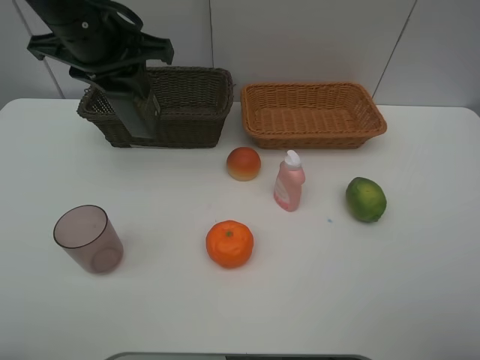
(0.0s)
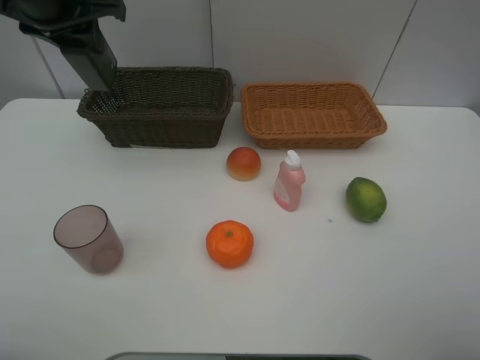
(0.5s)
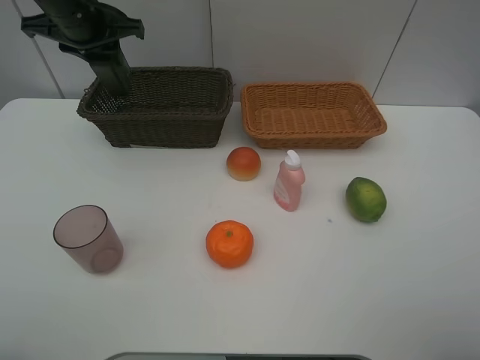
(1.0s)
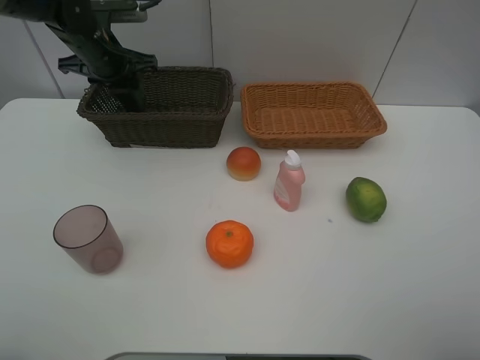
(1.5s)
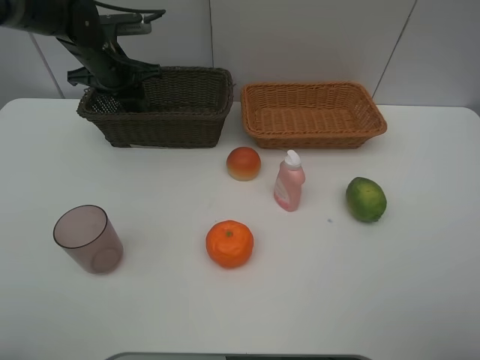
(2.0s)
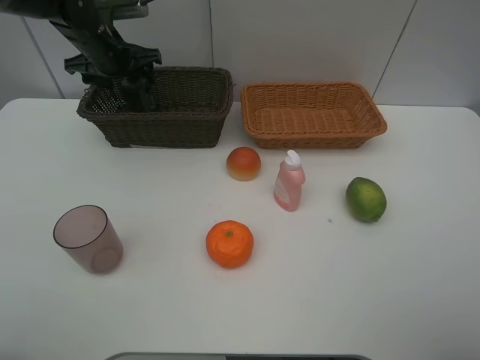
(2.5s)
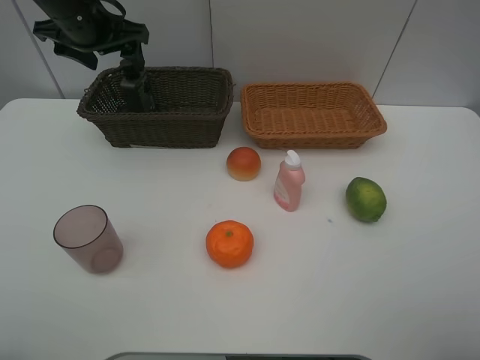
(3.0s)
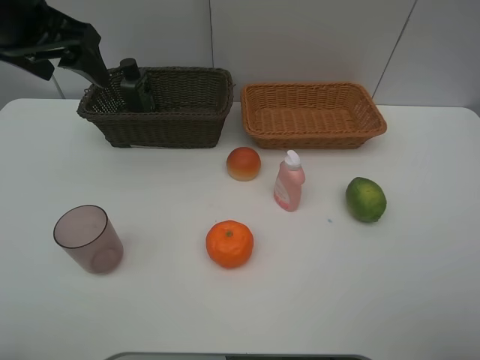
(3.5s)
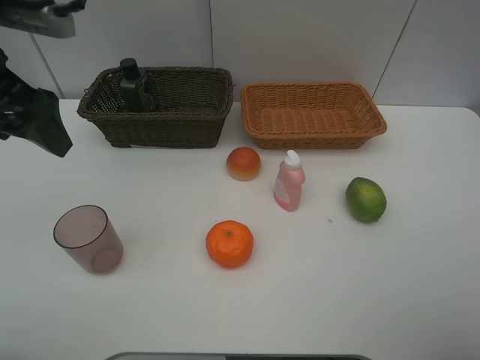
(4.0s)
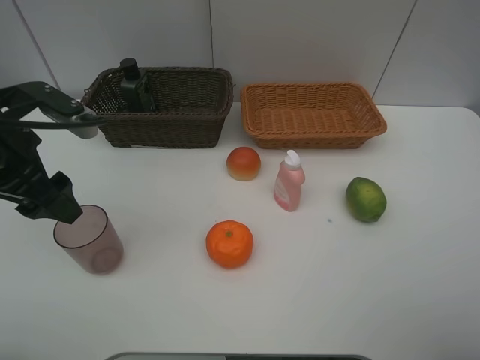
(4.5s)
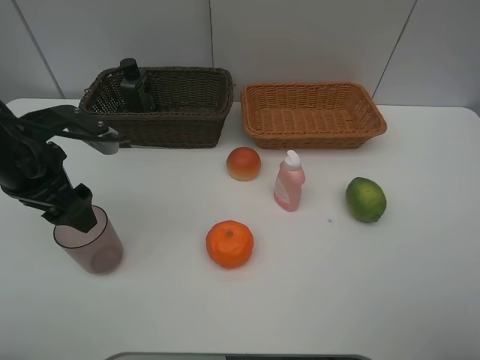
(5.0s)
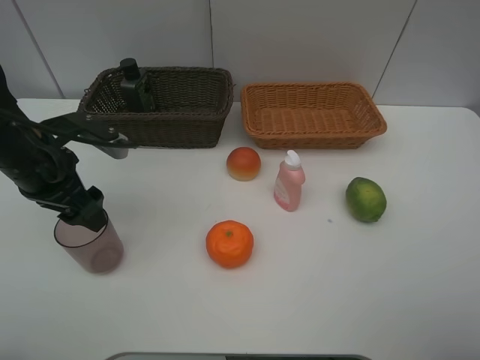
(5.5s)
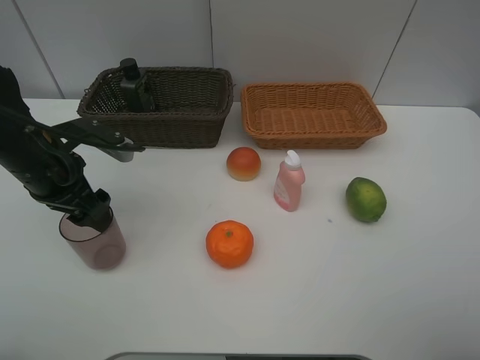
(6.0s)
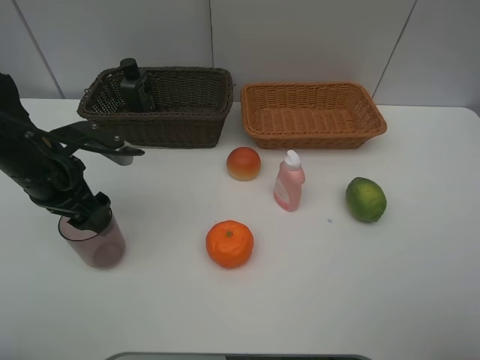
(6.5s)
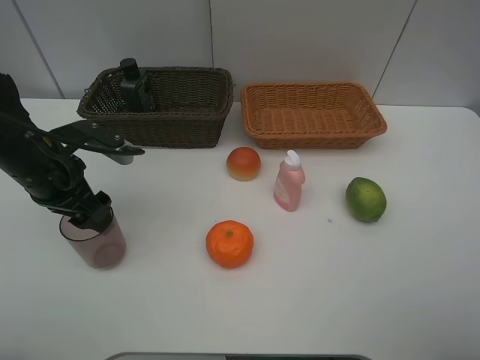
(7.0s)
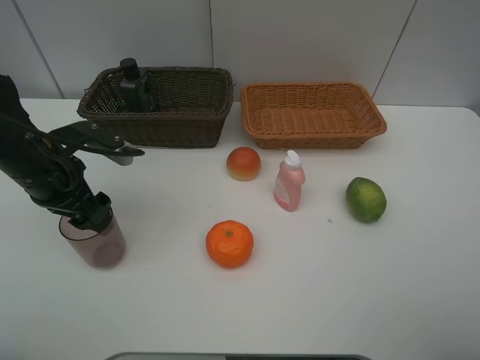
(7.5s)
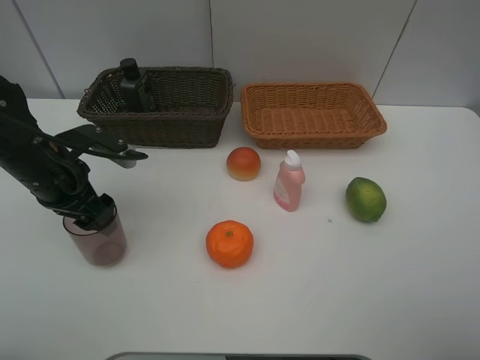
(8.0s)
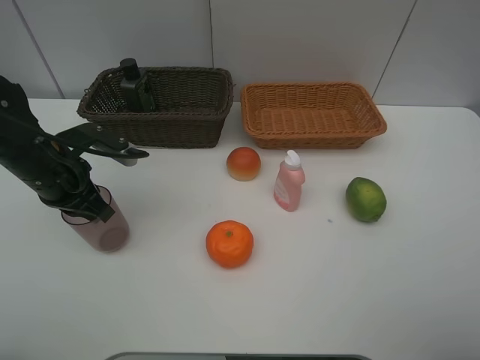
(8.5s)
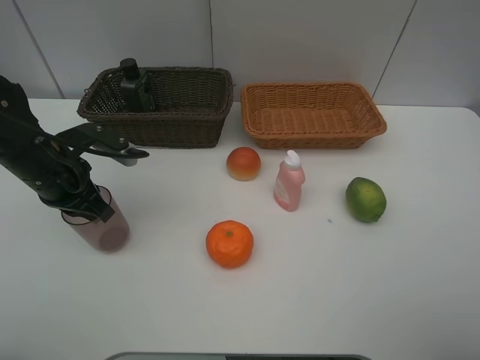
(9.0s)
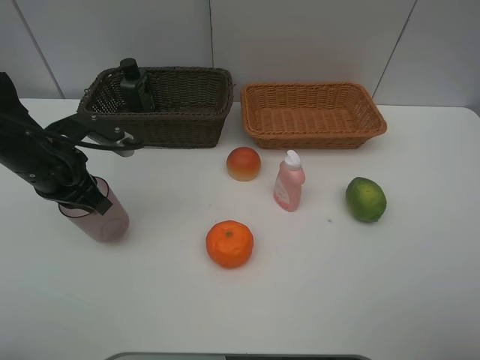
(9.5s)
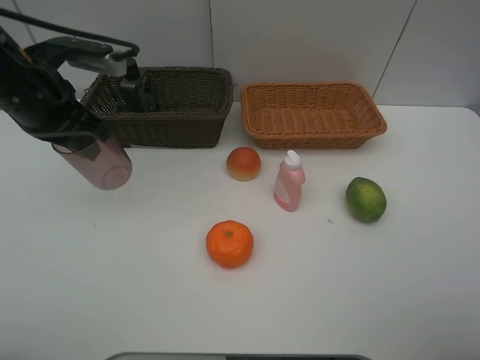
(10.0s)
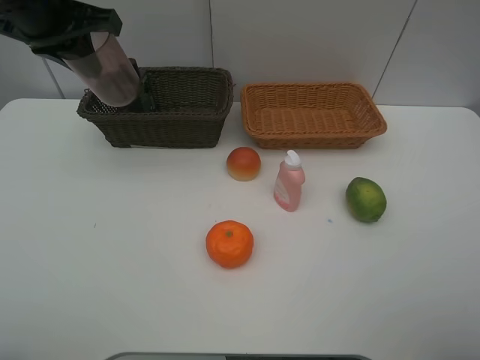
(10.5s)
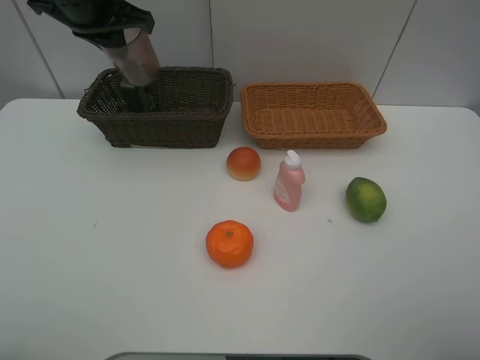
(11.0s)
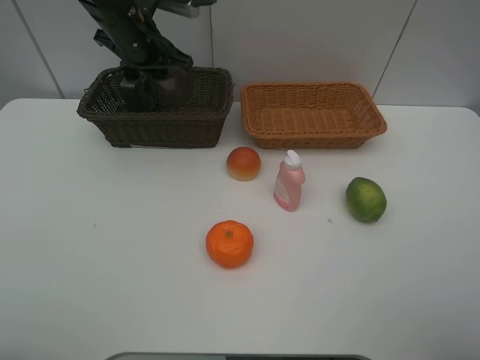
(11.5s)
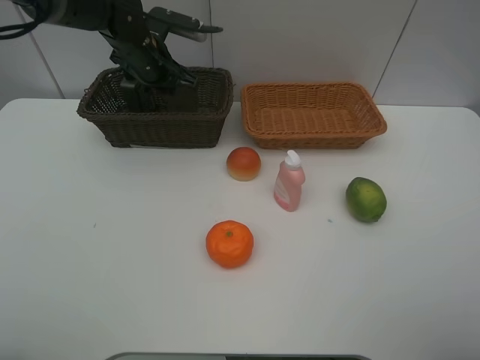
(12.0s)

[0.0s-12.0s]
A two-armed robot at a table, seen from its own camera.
Task of the whole recording: place multiple objects separately in different baskets.
0.0s to 2.0s: The left gripper travels forward and downward by roughly 20 cm.
2.0s to 4.0s: The left gripper heads backward and upward, covering about 25 cm, and opens.
4.0s to 6.0s: The left gripper is displaced downward by roughly 15 cm.
6.0s to 8.0s: The grippers move only a little.
8.0s to 10.0s: The left gripper heads upward, covering some 10 cm, and closes up.
10.0s to 12.0s: The left gripper heads forward and to the right, covering some 20 cm.

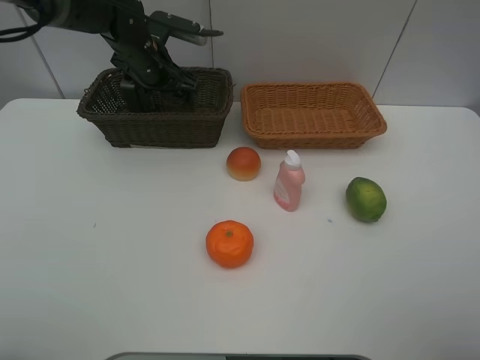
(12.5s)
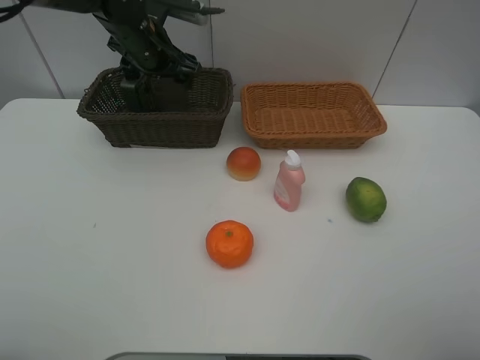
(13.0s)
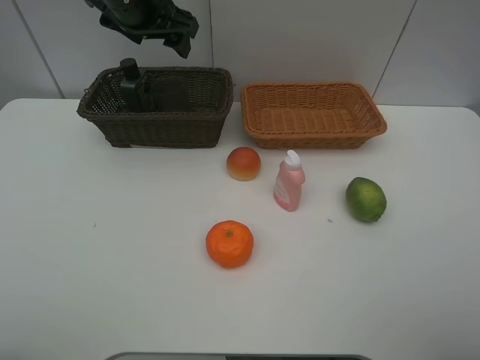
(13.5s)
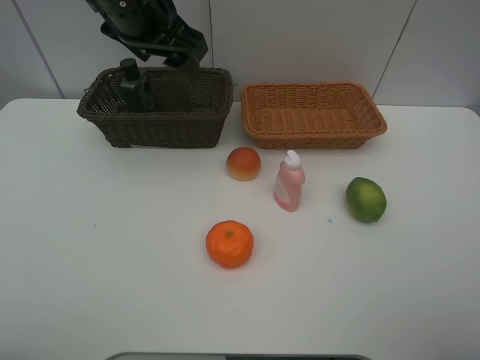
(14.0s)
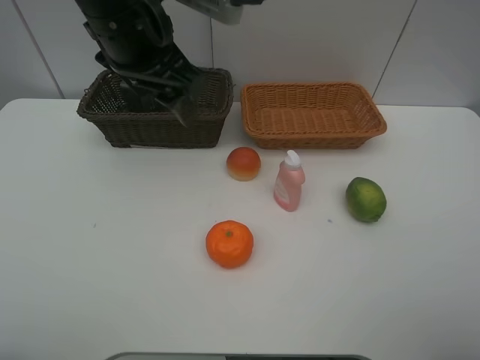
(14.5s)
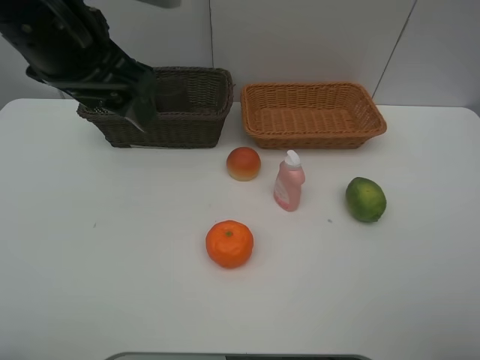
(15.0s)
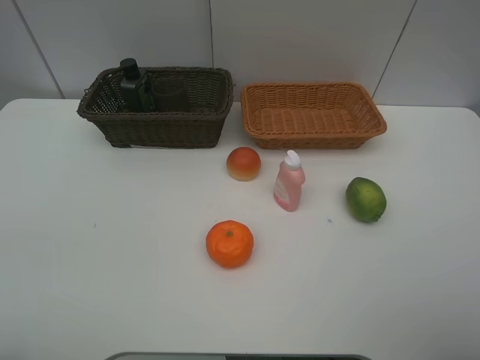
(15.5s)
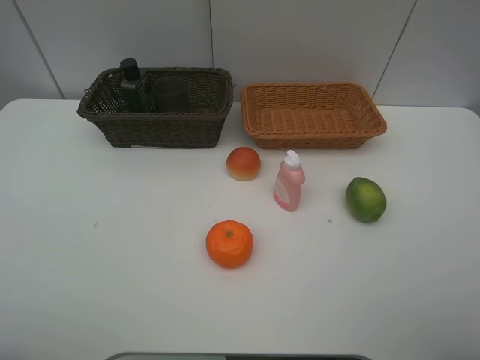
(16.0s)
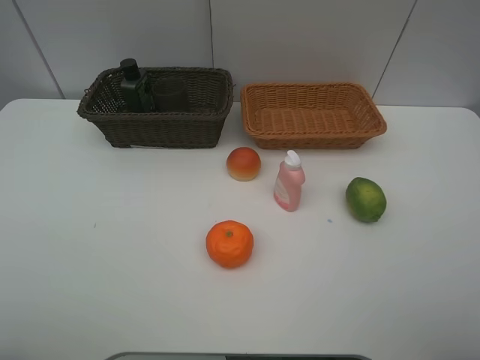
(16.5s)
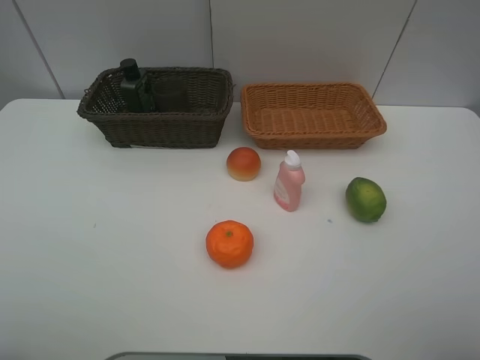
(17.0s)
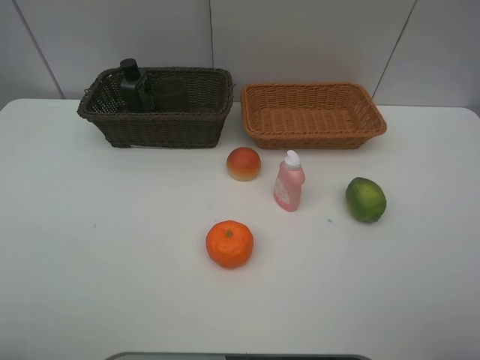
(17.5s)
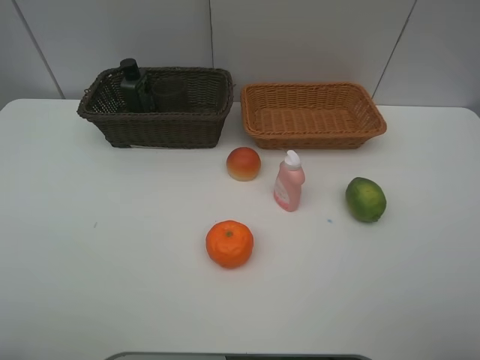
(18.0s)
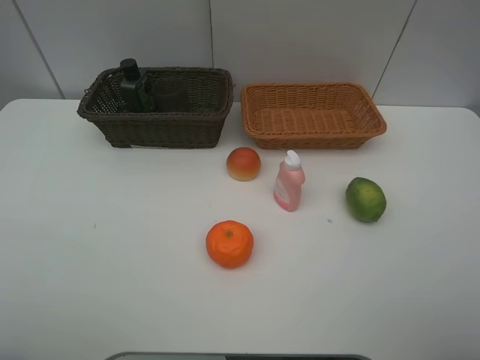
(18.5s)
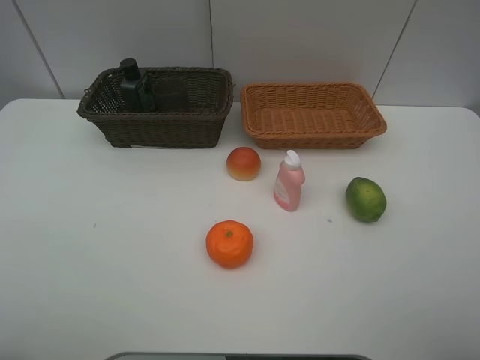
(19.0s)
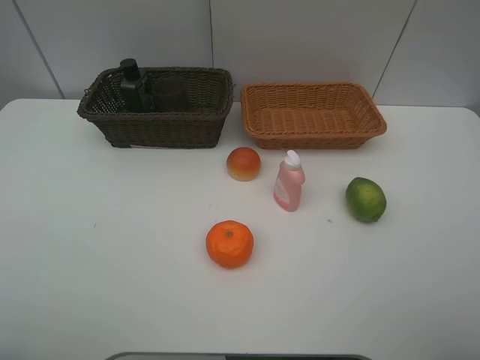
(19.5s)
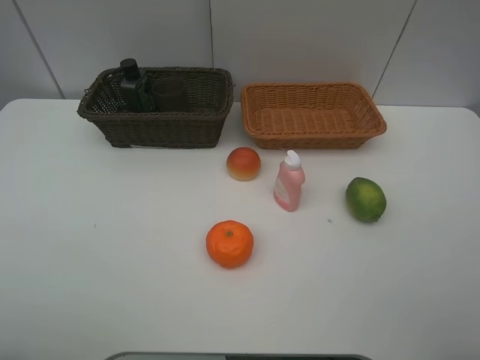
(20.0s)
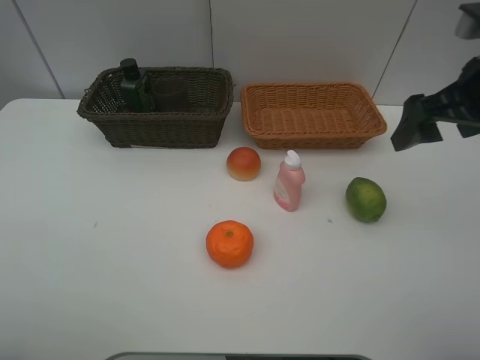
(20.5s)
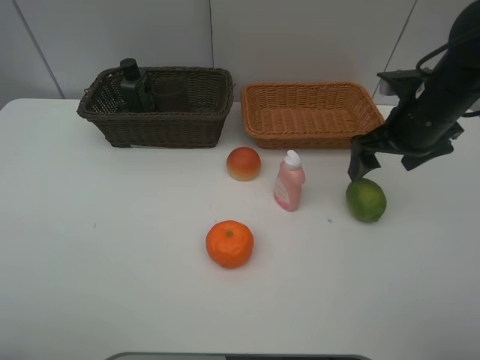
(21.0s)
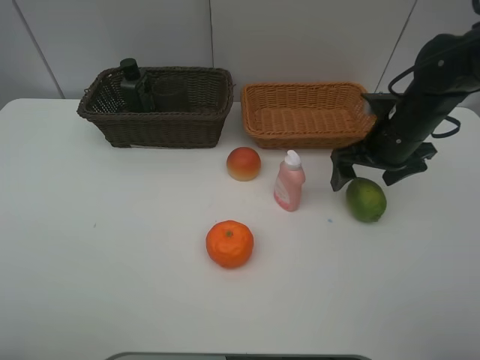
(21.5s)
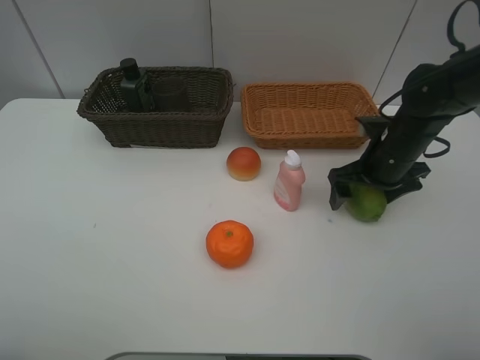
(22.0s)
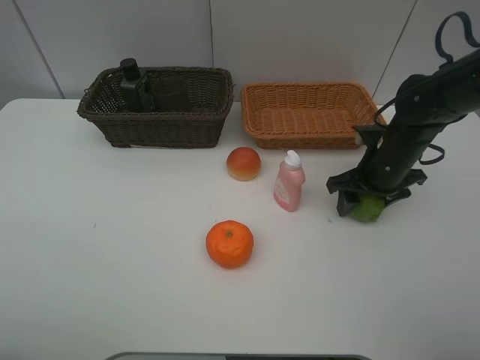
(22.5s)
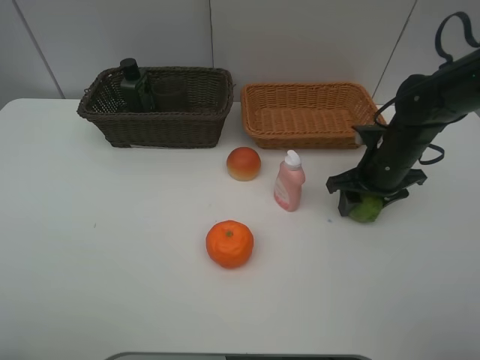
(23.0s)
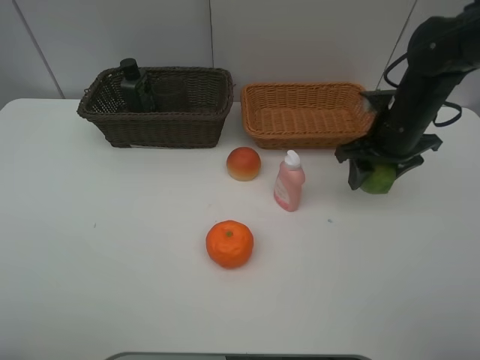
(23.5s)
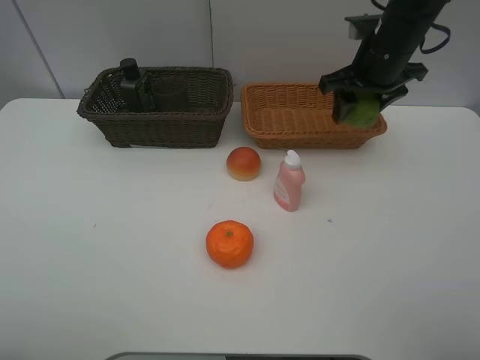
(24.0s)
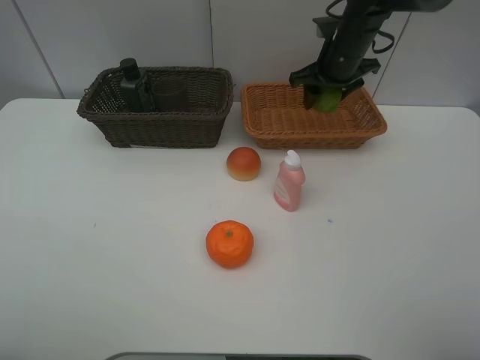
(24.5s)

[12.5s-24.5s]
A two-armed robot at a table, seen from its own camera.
Task of the whole recording: place multiple objects separately in different baskets.
12.5s to 14.5s: The left gripper moves backward and upward, roughly 20 cm.
14.5s to 16.5s: The left gripper travels backward and to the left by approximately 35 cm.
18.5s to 20.5s: The right gripper goes roughly 25 cm forward.
20.5s to 22.5s: The right gripper shifts roughly 15 cm downward, and closes.
22.5s to 24.5s: The right gripper travels forward and upward by approximately 15 cm.

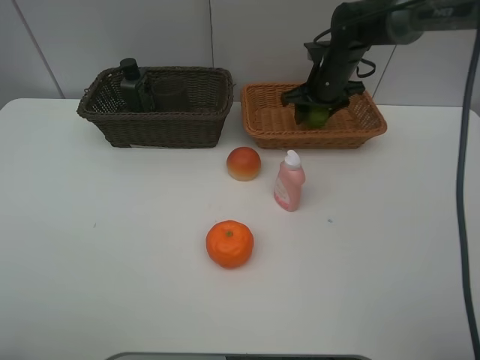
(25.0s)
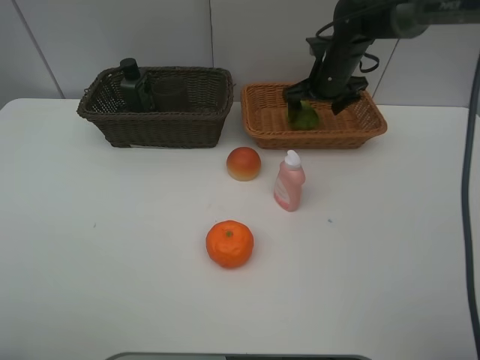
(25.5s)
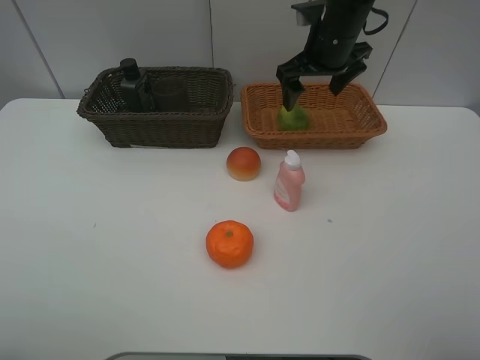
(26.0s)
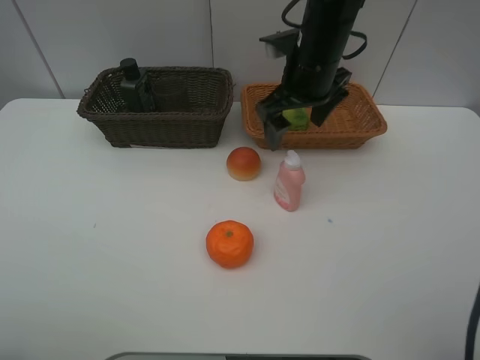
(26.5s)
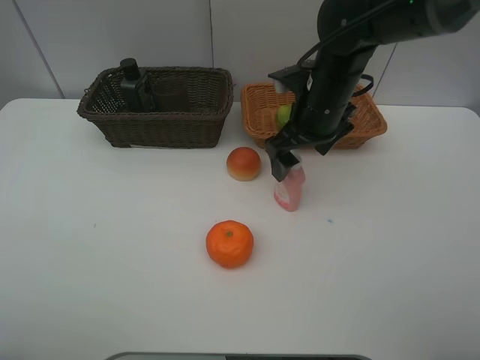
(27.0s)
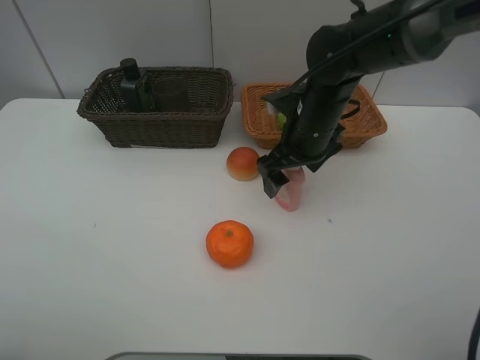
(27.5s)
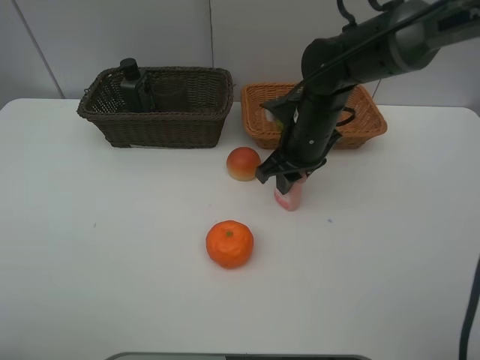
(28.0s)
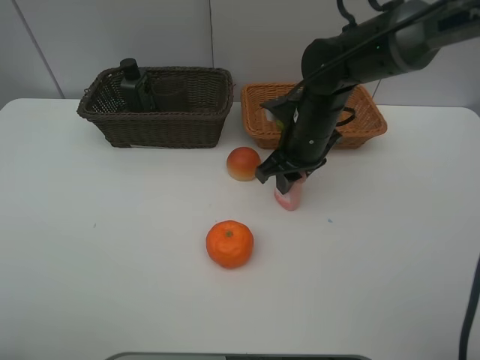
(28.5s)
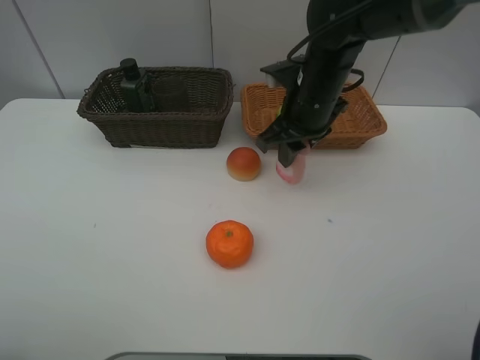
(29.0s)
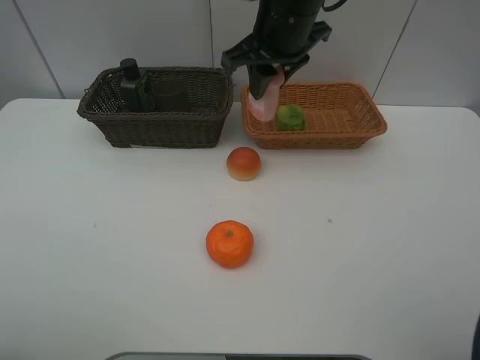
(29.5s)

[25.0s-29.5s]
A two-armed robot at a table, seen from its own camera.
Task of the whole recording: place multiple objects separately in different baskets.
25.0s to 27.0s: The right gripper goes roughly 15 cm backward, and opens.
27.0s to 29.5s: The right gripper travels upward and to the left by about 10 cm, and closes its fingers.
